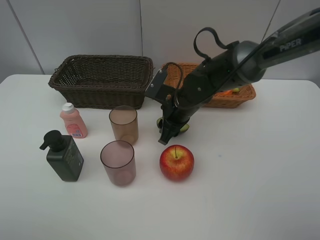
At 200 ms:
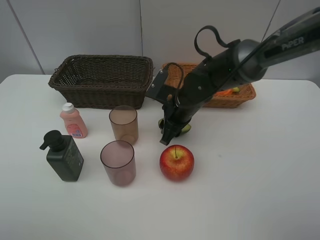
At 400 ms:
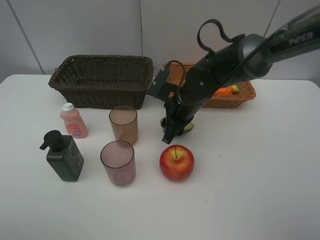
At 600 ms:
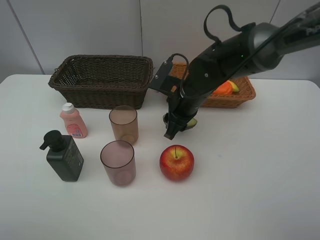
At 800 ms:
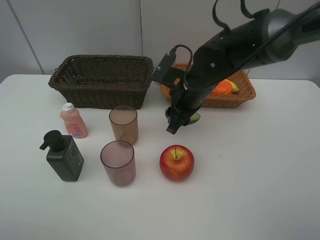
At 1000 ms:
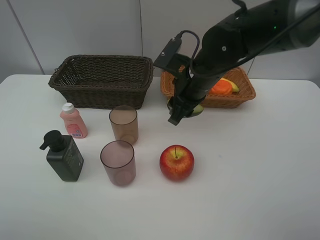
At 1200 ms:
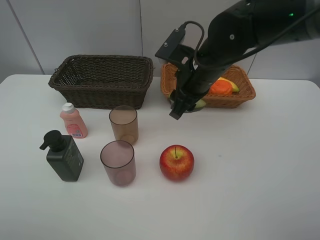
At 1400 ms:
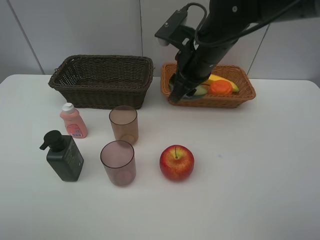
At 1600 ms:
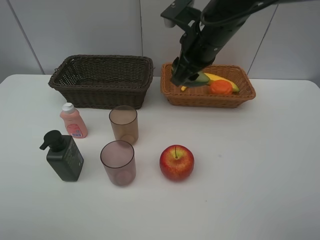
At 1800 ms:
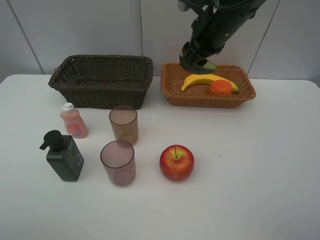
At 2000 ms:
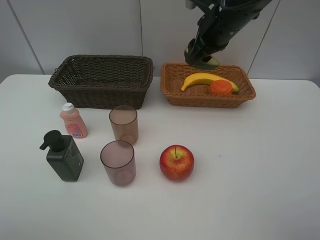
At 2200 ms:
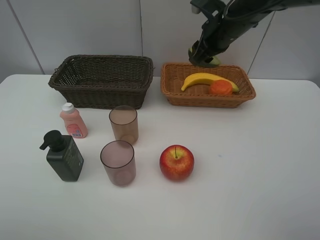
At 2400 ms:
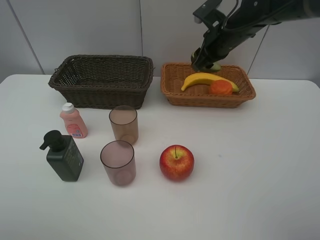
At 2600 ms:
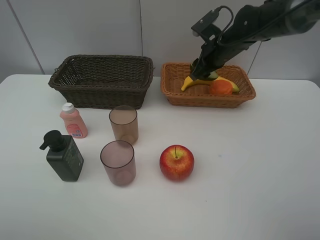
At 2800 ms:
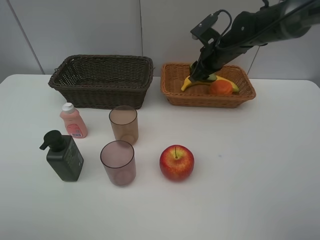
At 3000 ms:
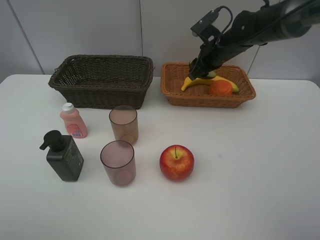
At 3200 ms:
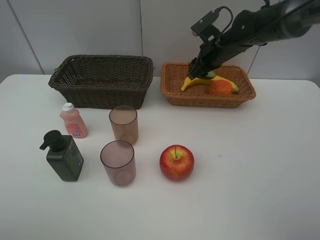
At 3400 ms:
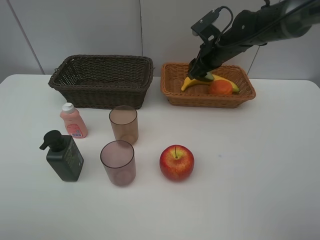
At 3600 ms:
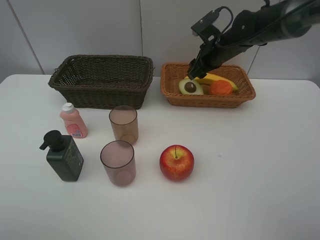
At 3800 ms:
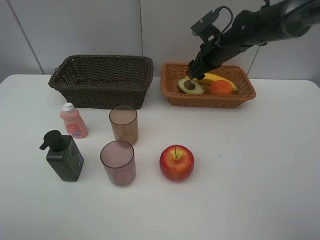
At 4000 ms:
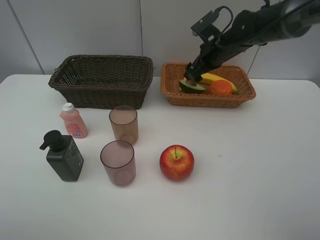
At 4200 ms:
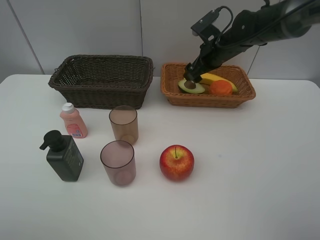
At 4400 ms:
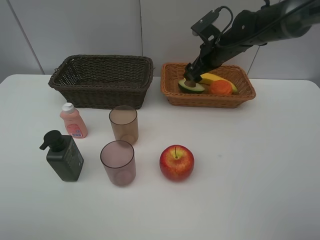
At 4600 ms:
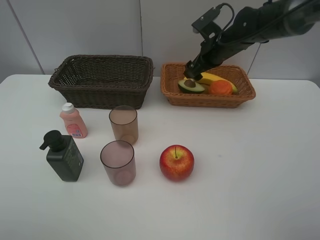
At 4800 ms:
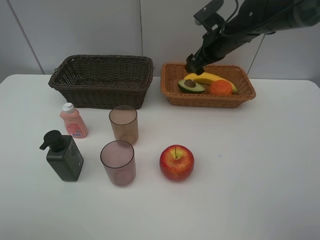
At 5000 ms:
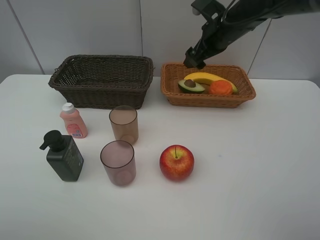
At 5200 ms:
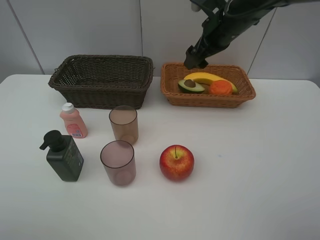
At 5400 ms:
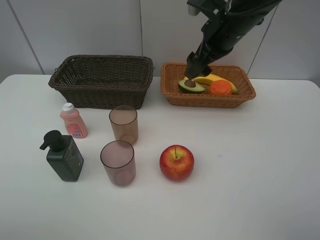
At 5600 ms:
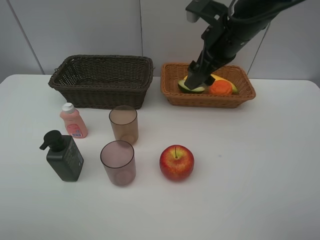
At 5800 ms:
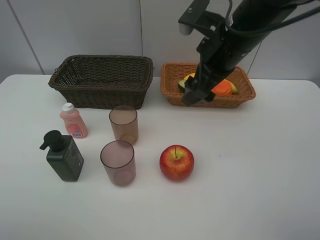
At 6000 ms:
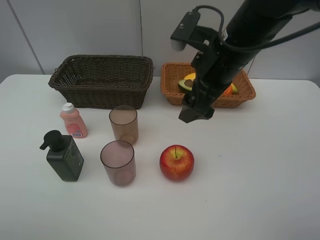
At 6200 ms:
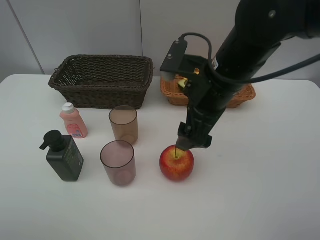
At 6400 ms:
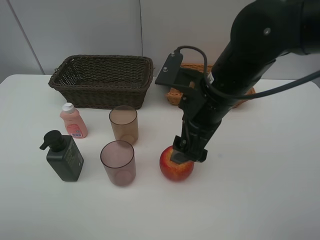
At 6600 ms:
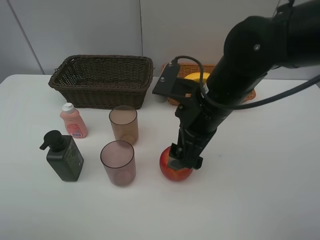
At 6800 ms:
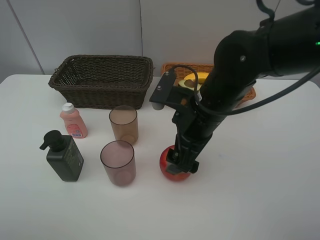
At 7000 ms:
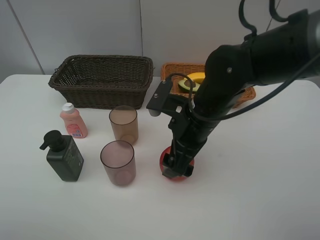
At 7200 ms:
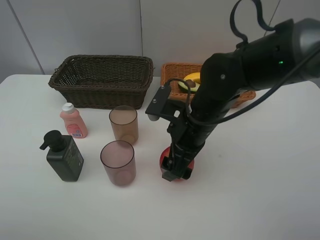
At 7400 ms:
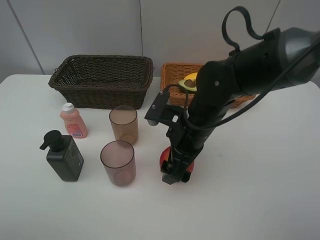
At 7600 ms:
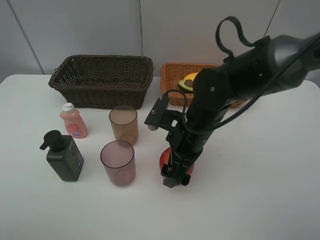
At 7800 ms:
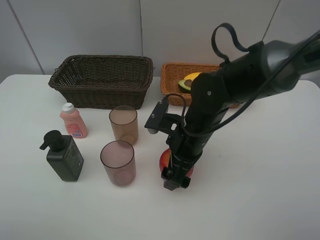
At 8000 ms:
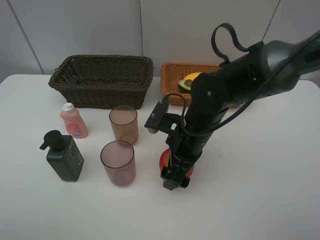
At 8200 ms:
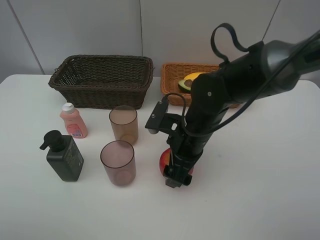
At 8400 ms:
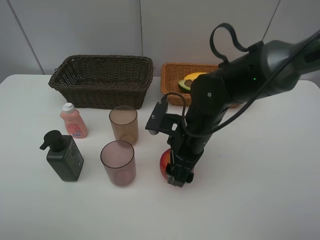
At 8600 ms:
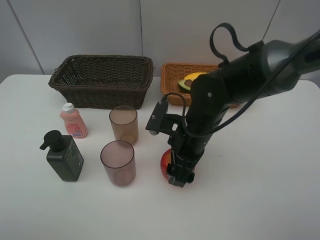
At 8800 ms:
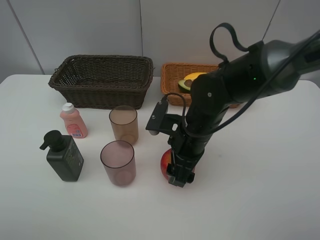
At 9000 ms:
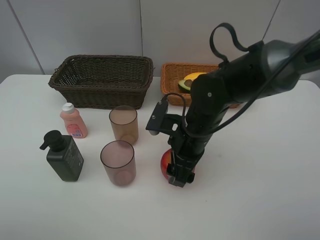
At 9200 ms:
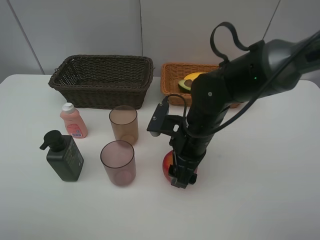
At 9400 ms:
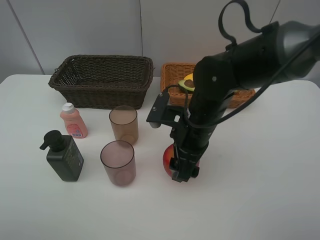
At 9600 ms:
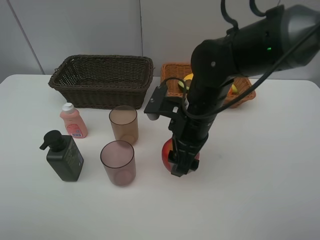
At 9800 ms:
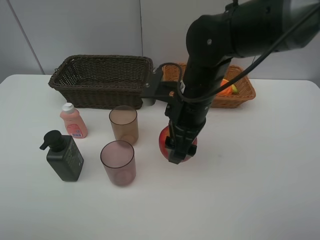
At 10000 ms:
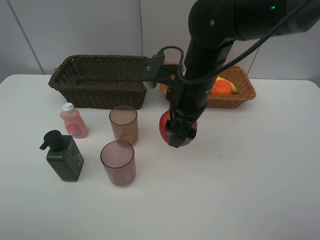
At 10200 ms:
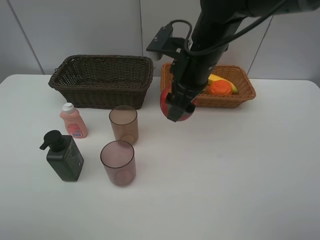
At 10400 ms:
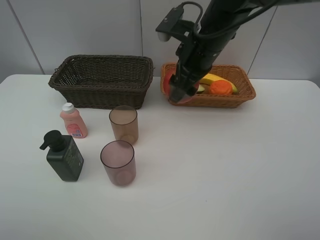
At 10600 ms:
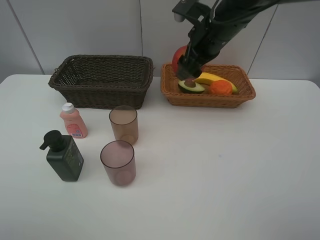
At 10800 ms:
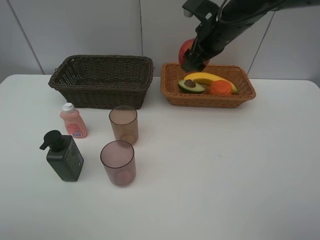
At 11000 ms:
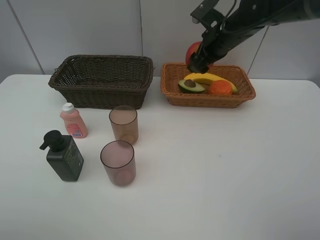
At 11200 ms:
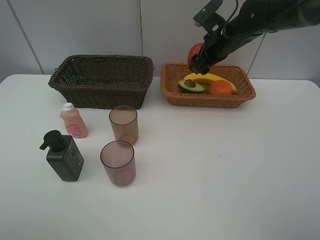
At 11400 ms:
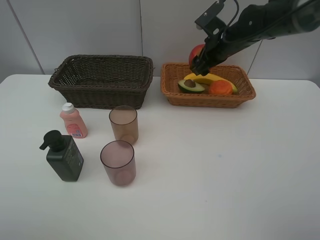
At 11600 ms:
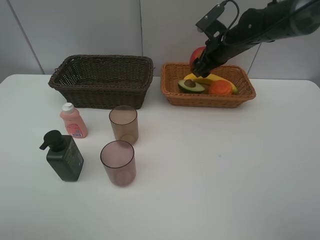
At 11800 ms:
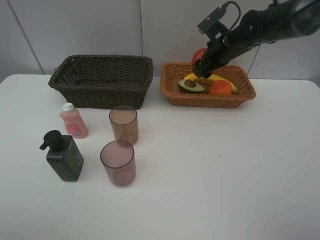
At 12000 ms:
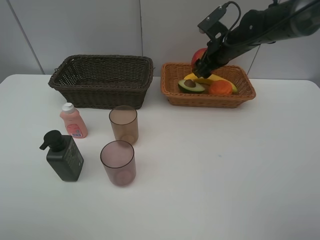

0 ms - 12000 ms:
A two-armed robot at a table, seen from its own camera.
Task of the whole recording: Place multiple objects separately in different baskets.
Step, 600 ms - 3600 ms: Place the avocado in the light basket with right gripper.
Step, 3800 ms - 9200 ms: Pick up the apple with right gripper.
0 ms - 1600 ms: The right gripper shifts approximately 15 cm upward.
1600 ms - 3000 ms: The right gripper shifts some 15 cm forward, downward and to the right.
4400 ms - 6000 ms: The right gripper goes about 20 cm backward.
6000 ms - 7600 ms: The right gripper heads downward, covering approximately 15 cm.
7600 ms - 9000 ms: Both grippers stay put.
9000 ms - 10400 ms: The right gripper heads upward and forward, covering approximately 15 cm.
10400 ms - 12000 ms: The right gripper shifts roughly 15 cm forward, to the right and downward.

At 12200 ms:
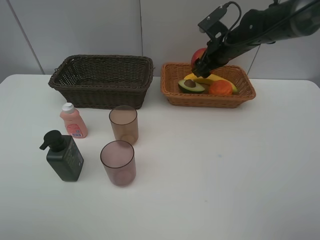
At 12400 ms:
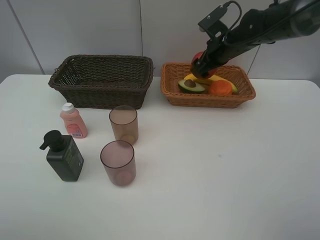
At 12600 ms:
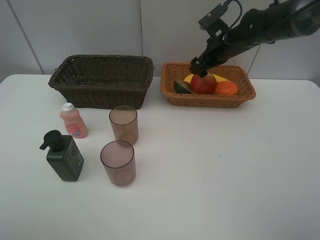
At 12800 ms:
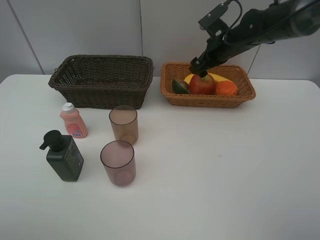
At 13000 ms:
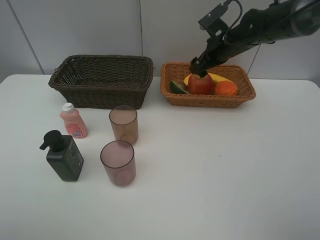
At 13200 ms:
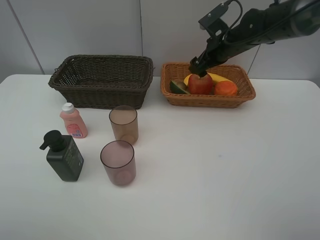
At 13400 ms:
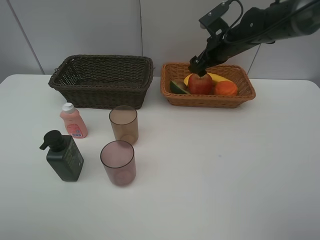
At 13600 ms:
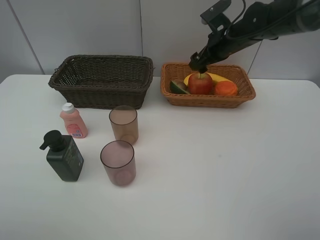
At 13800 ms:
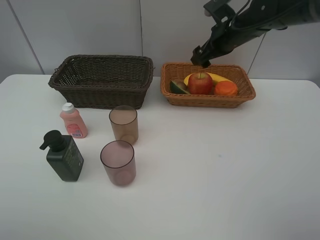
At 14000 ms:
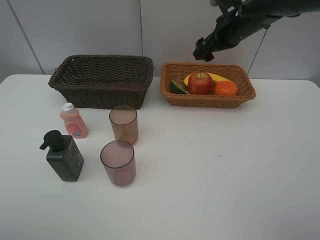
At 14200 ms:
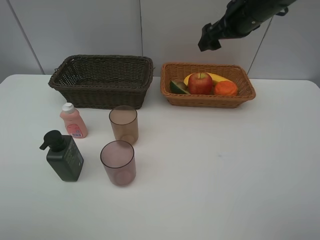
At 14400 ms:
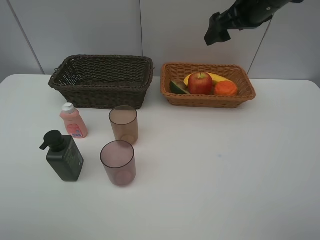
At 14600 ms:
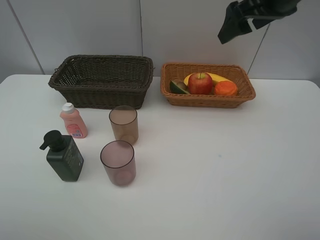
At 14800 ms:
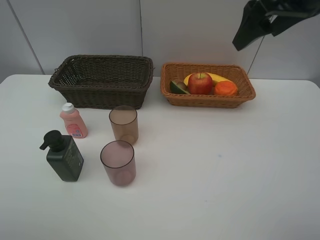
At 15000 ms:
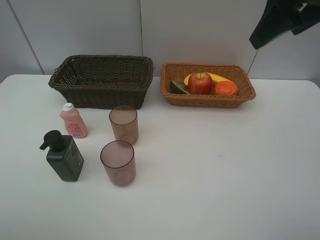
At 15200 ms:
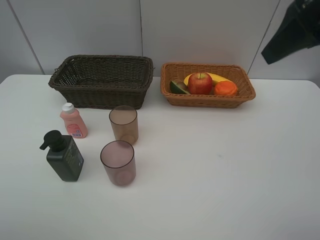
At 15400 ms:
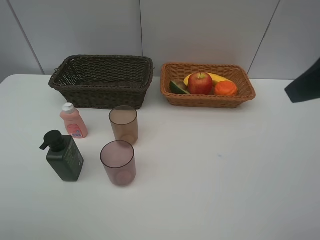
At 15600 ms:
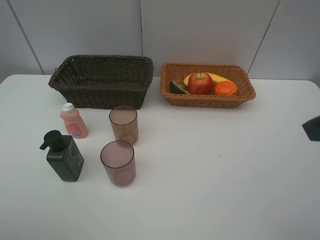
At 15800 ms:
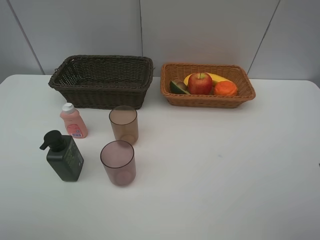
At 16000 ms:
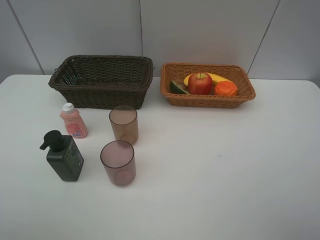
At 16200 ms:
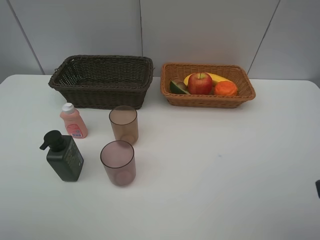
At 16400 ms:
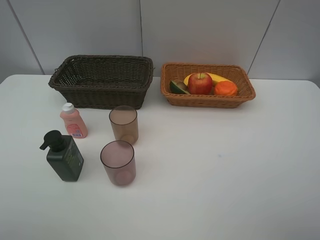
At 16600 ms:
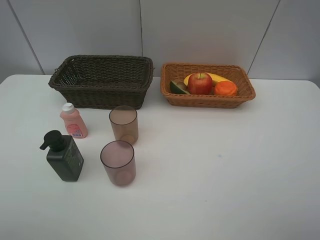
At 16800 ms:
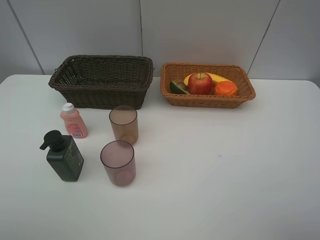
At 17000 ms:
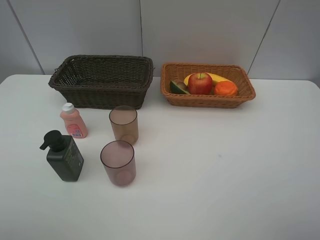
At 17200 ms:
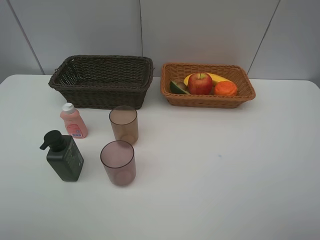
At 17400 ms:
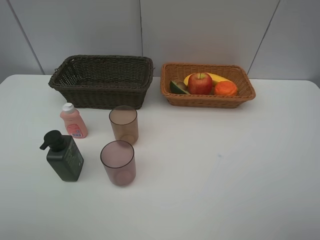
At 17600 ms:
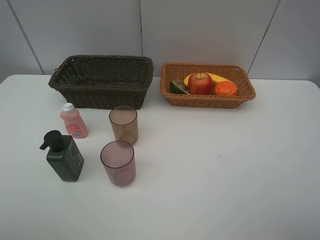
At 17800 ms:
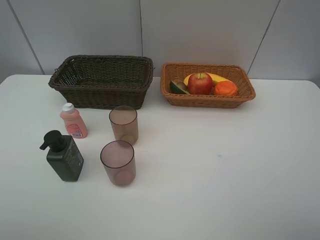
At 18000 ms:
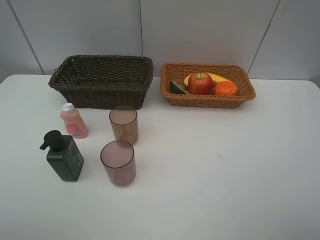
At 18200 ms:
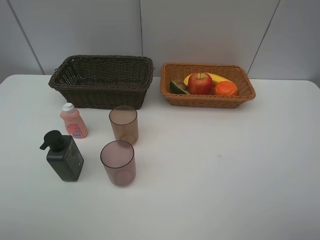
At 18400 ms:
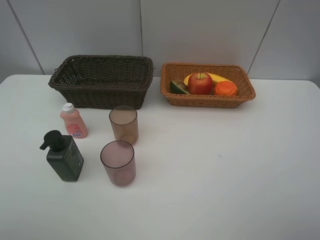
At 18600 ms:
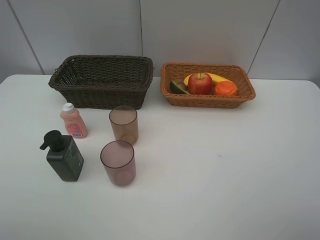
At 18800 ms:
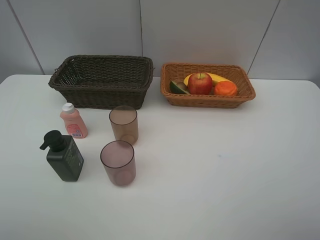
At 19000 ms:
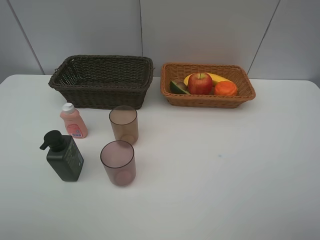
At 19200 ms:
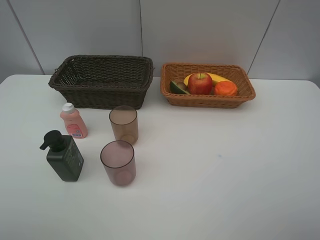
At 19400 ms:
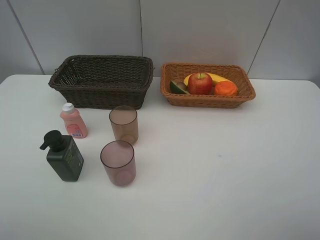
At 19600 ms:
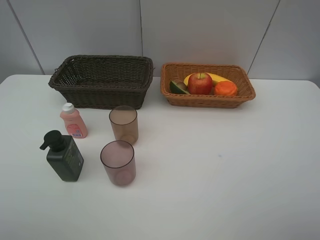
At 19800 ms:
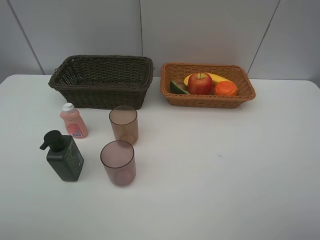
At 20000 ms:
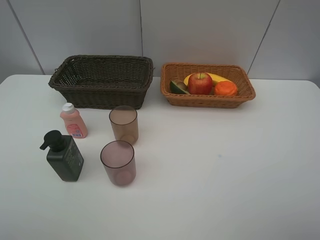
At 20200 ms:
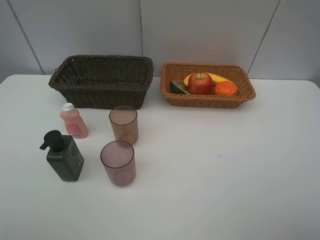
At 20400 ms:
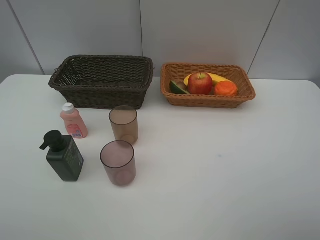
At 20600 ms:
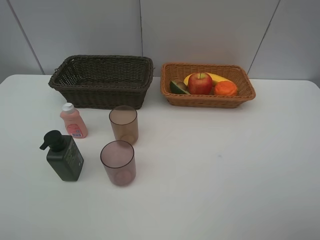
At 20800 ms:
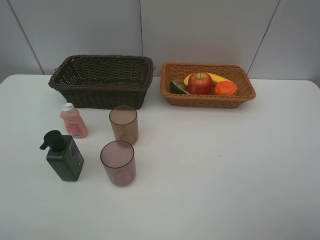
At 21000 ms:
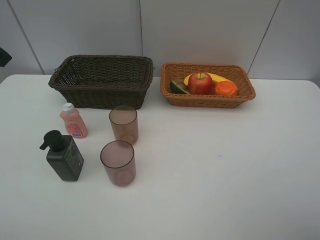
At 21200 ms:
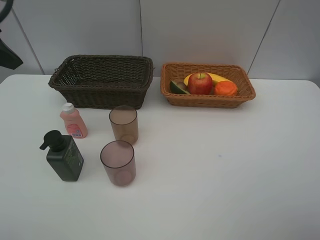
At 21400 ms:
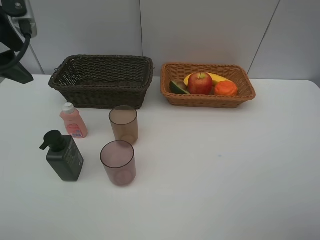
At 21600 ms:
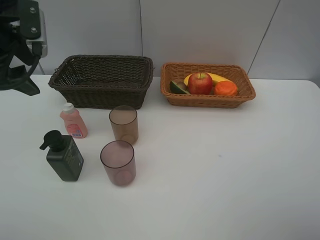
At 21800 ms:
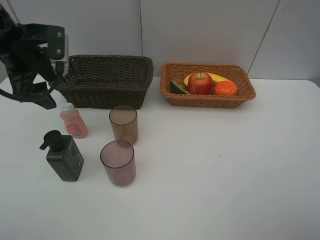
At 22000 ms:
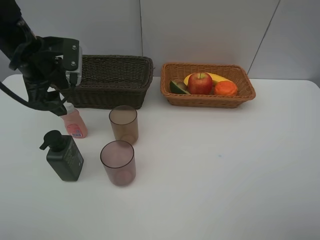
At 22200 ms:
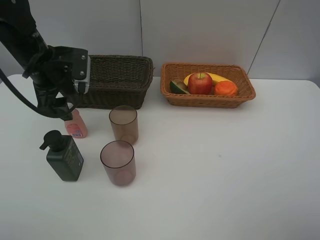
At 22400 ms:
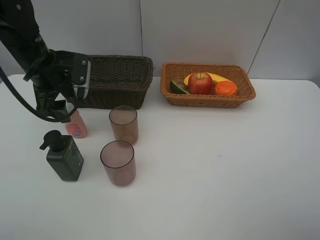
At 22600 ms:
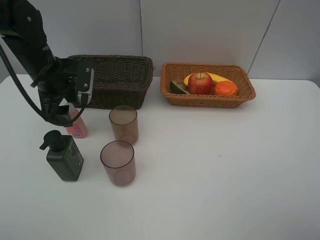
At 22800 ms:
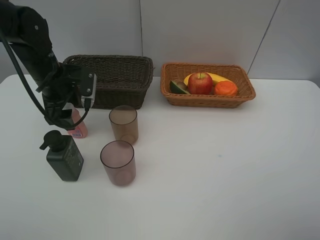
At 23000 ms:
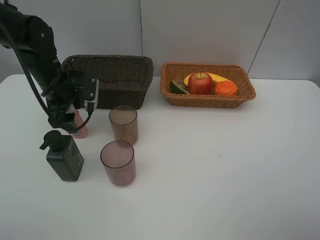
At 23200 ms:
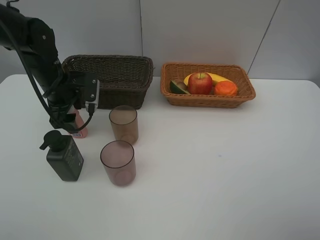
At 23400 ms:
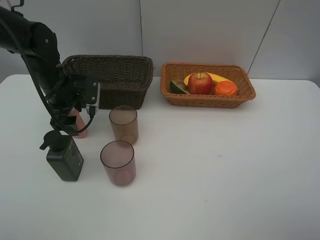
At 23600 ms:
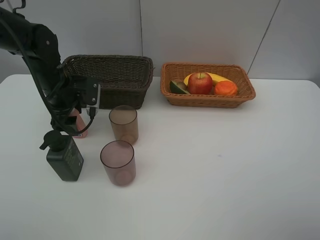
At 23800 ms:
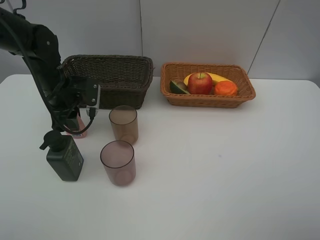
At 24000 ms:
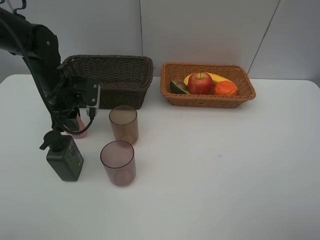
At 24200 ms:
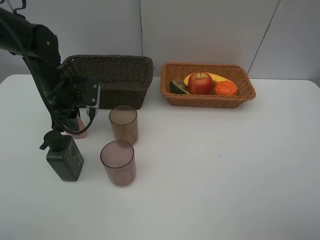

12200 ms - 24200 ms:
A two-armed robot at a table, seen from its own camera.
Task of the whole recording: Place multiple objects separately in different baskets.
12200 ms - 13800 ms: The grippers move only a little.
13800 ms - 15200 ms: The right gripper goes approximately 25 cm backward and upward.
15200 ms - 16600 ms: The right gripper heads backward and downward, covering about 25 cm.
19800 ms - 21200 ms: The left gripper moves forward, some 25 cm.
21200 ms - 22600 ms: The left gripper heads downward and forward, covering about 20 cm.
22600 ms - 24200 ms: The left gripper closes its fingers.
